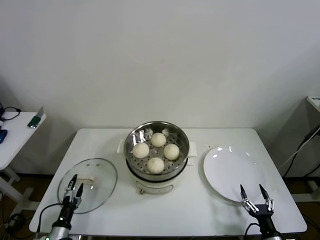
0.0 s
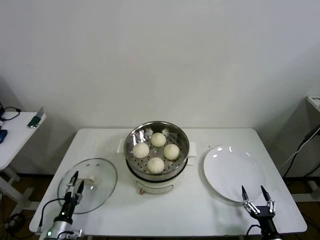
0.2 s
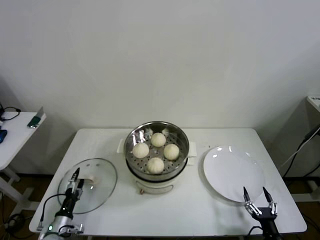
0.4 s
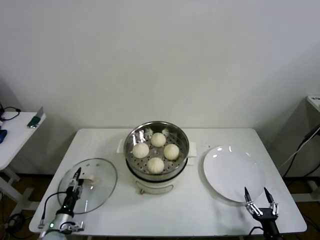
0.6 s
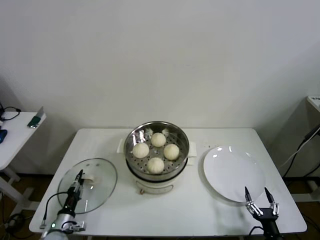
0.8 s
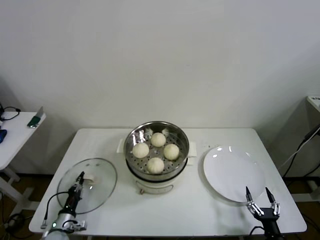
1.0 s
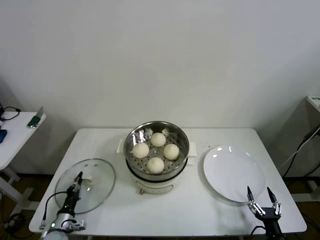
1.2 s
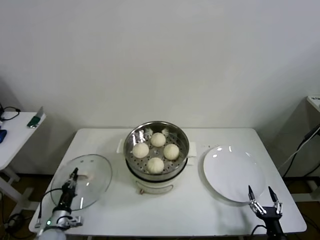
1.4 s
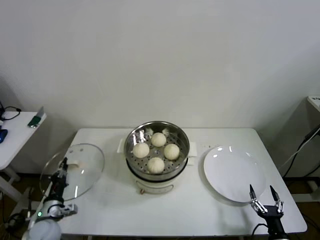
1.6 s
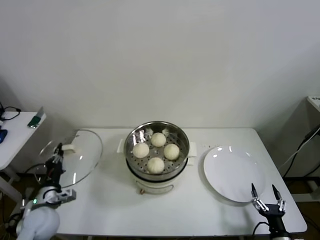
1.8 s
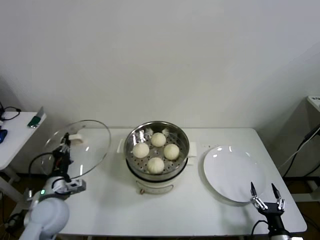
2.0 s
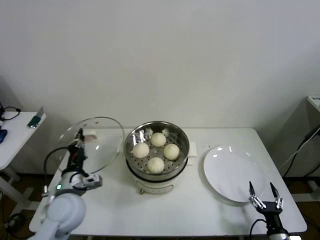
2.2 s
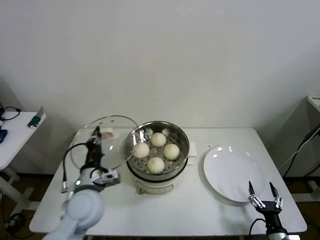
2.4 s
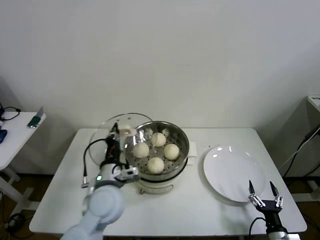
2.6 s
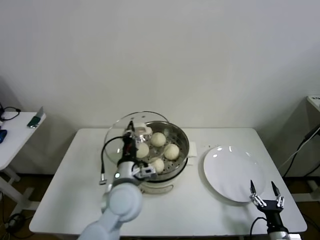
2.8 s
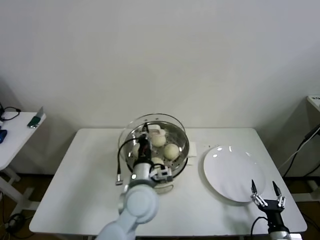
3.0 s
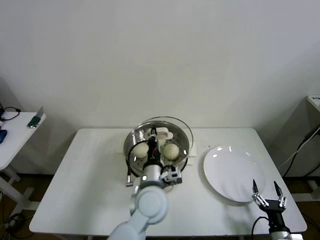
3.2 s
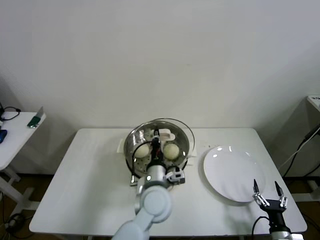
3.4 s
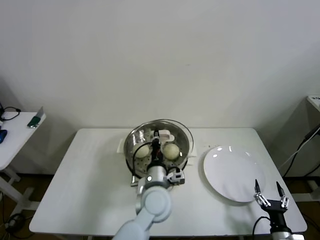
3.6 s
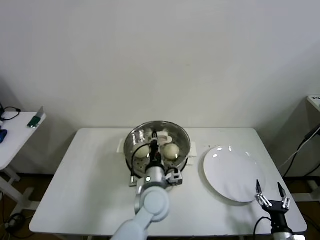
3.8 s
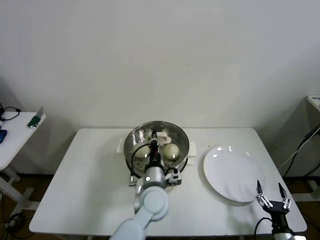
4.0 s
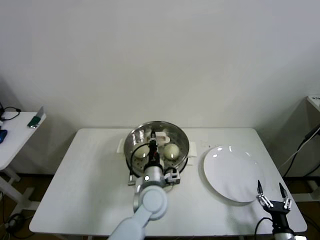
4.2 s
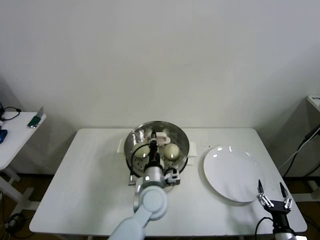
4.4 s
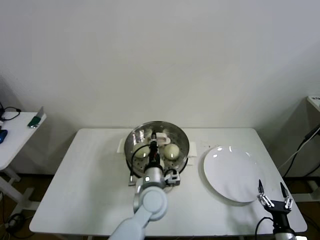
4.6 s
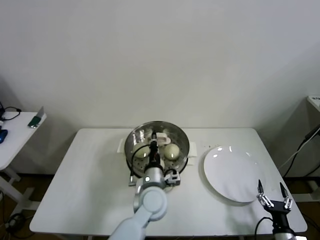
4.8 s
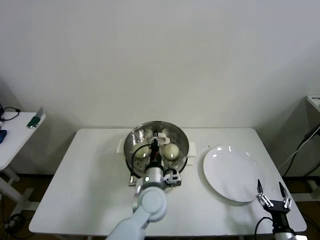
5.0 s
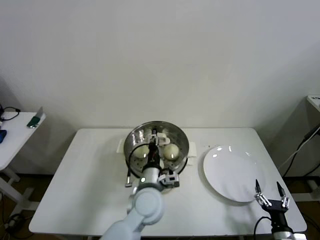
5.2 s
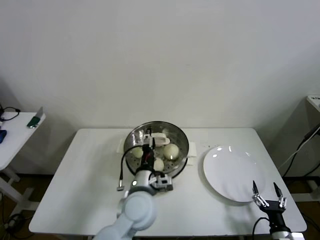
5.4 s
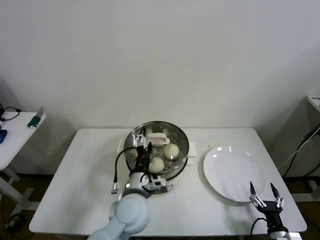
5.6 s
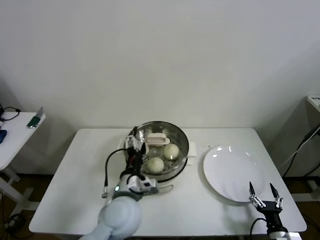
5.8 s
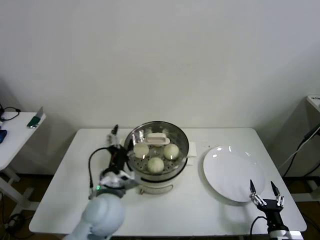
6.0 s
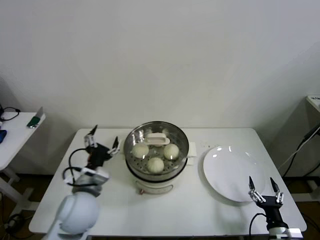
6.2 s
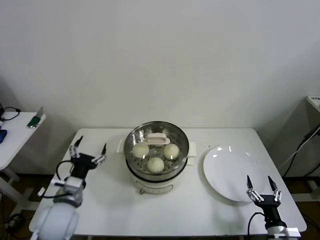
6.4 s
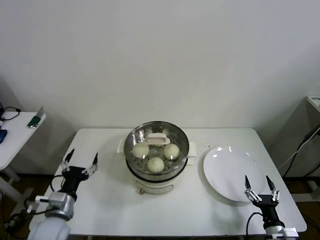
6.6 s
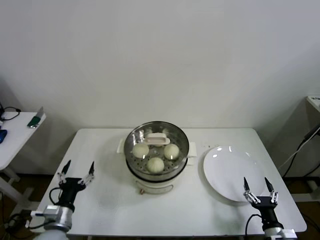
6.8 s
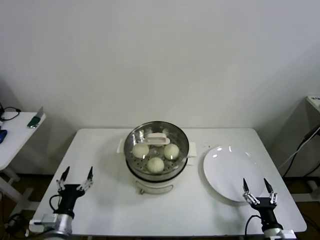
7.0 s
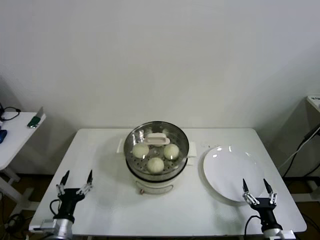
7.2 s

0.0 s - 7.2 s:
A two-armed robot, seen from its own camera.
Step, 1.2 s - 4.8 s: Place the pot lid on the steamer with left gripper.
0.0 s - 1.4 s: The left gripper shifts some 5 cm forward, and closes its fingers.
1.4 s - 2.8 s: The left gripper goes approximately 35 cm to the right and upward.
2.8 s - 4.4 s: The left gripper goes some 10 cm to the right and downward.
4.4 s - 5.8 s: The left gripper travels to the left and backward by some 10 cm, and opens up.
5.8 s - 7.2 s: The left gripper heads to the left and downward, covering roughly 25 cm.
